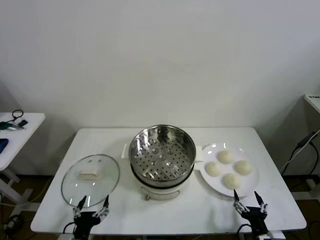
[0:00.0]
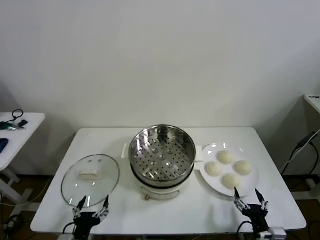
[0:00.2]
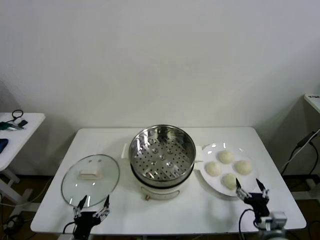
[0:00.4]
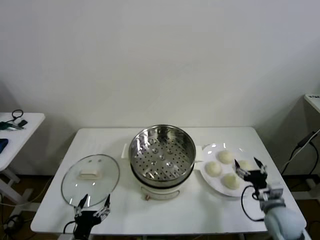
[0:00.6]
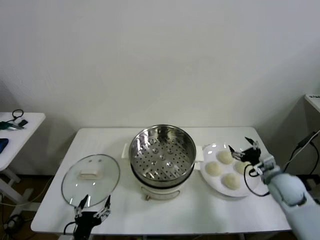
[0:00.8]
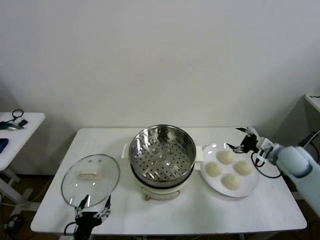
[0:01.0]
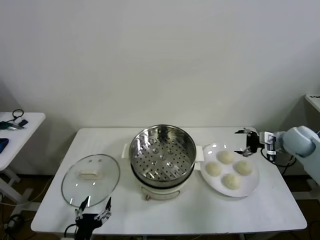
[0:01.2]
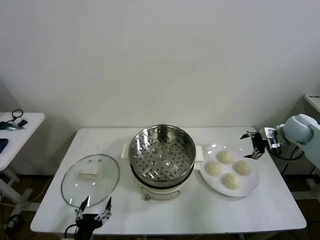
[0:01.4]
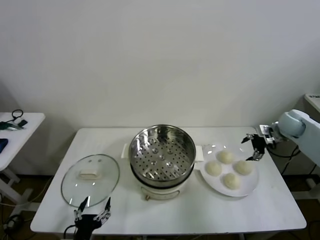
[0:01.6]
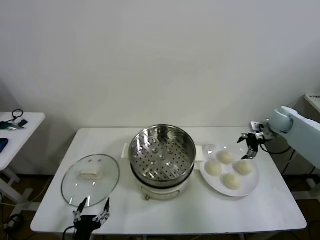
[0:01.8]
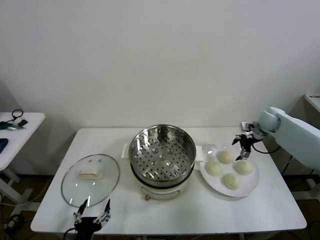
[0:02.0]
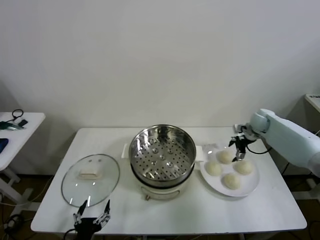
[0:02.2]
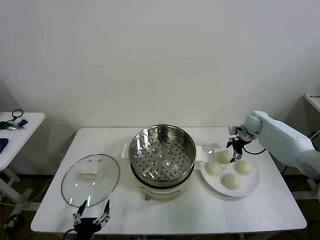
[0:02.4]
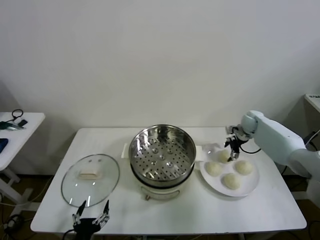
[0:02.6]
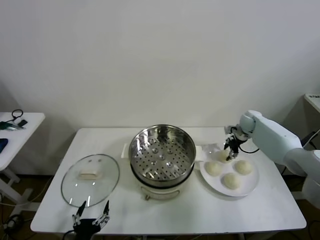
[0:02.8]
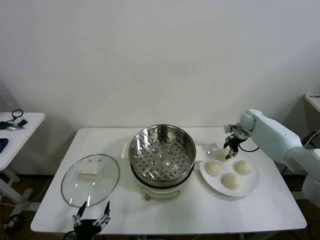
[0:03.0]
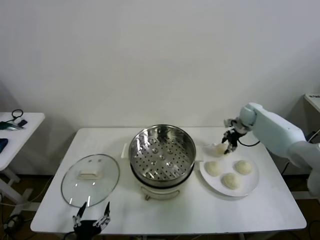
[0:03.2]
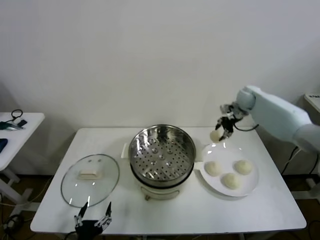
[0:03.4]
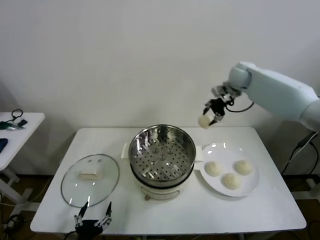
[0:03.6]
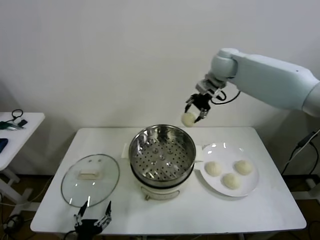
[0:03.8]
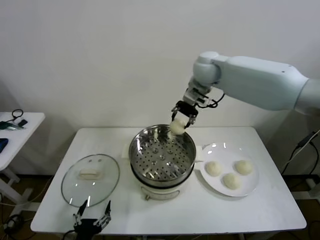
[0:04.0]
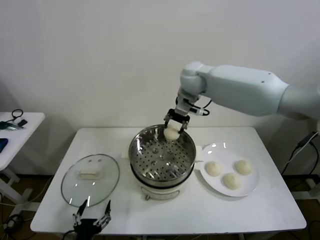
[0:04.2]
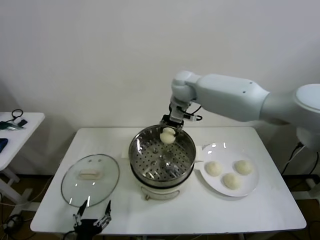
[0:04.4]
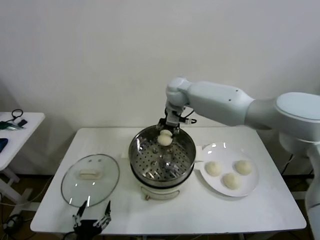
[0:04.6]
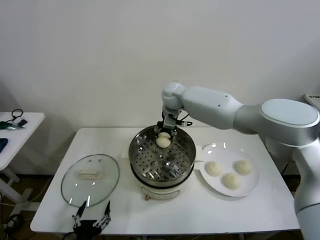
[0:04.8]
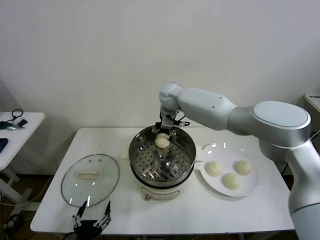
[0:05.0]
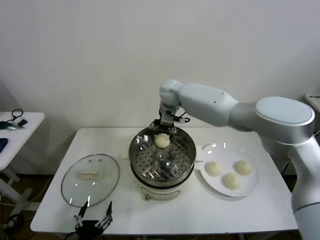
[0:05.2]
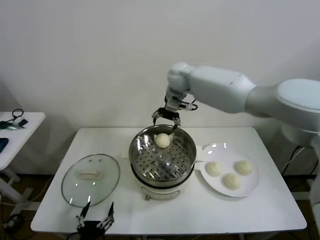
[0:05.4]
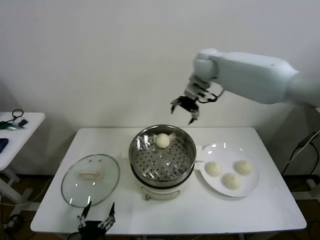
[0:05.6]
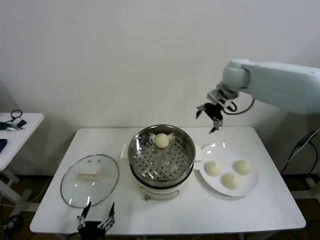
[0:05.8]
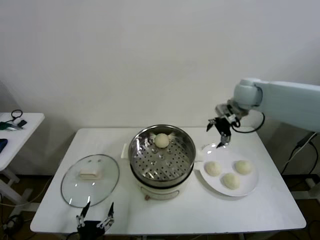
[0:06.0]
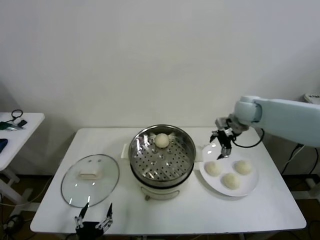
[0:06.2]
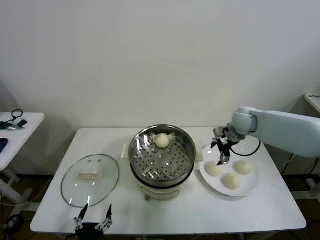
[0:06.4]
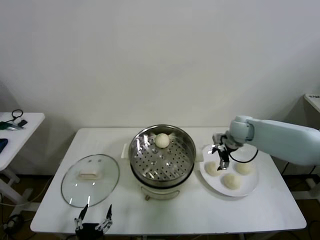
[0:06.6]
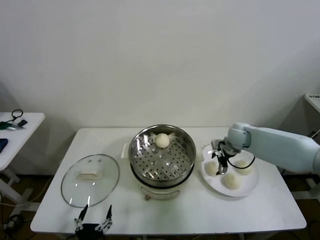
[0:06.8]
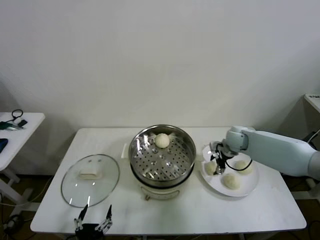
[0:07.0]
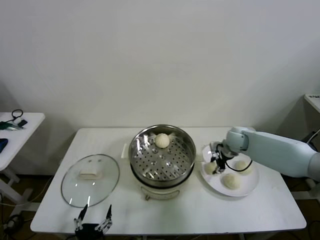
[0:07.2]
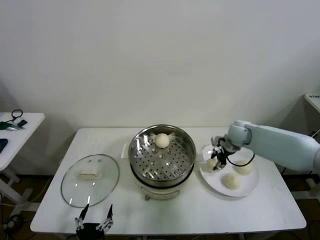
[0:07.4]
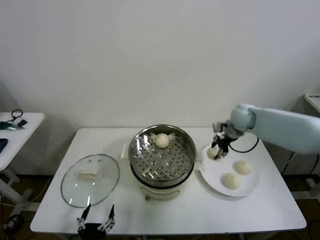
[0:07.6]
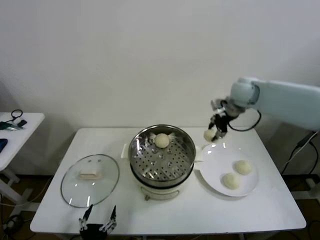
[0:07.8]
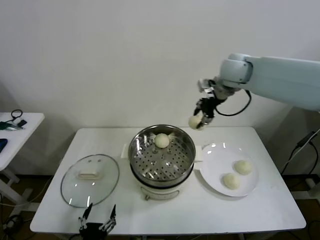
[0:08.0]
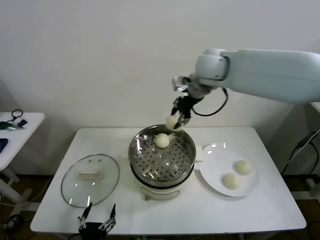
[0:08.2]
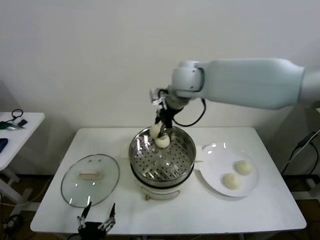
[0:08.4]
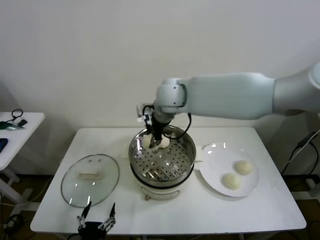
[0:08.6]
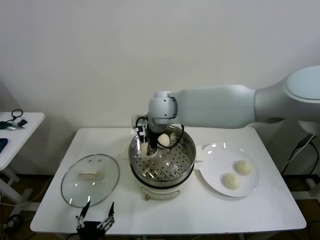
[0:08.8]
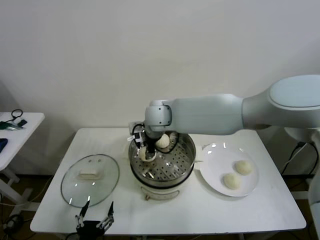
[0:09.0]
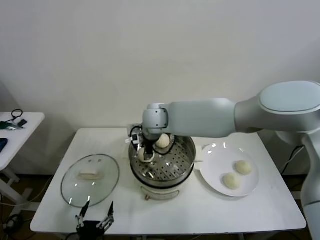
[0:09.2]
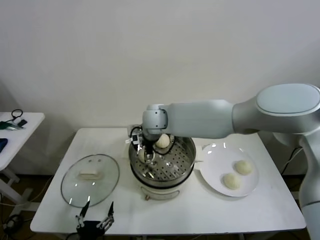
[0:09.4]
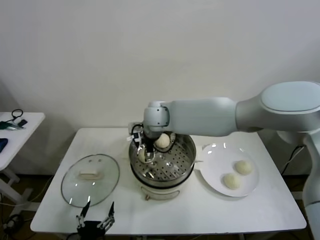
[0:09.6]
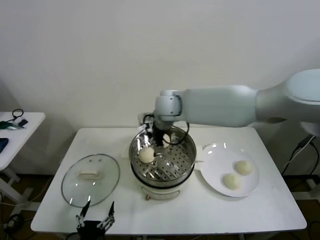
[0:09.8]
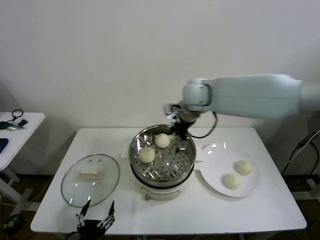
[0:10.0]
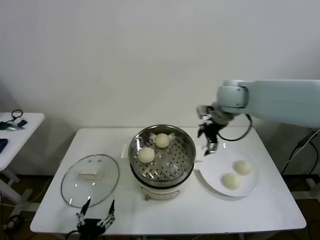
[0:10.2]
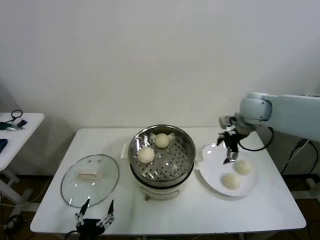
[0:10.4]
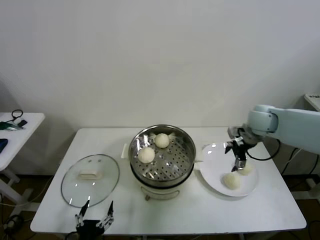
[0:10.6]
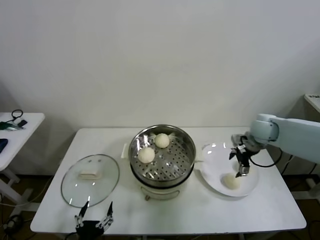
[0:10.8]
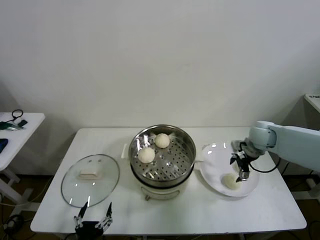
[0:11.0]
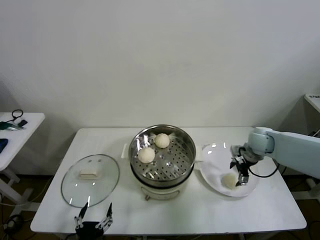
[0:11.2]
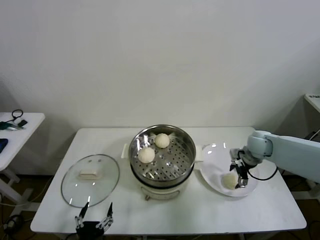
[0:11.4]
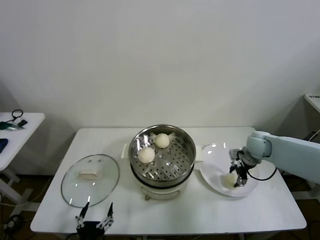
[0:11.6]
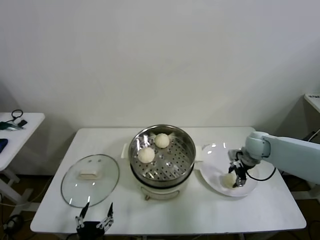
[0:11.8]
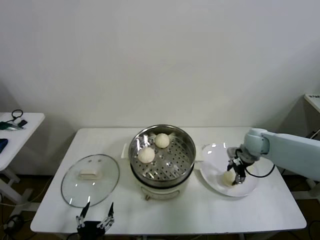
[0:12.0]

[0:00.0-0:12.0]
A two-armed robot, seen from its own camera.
Task of the whole recording: take steamed baozi put them in steamer then cover it.
Step, 0:00.0 to 0:03.0: Grasp the baozi in the plate with right gripper.
Step, 0:03.2 to 0:05.2: Place the baozi on the steamer with right gripper.
Step, 0:05.4 to 0:07.2: Grasp the baozi in the plate with right gripper.
Step, 0:07.4 to 0:09.6: Place the baozi on the steamer with right gripper.
Step, 0:09.8 to 0:11.8: Grasp the baozi in the plate with right gripper.
0:01.6 to 0:03.0: The right gripper shifts some 15 cm forward, to the left and downward, and closes up.
0:03.0 to 0:04.4: The right gripper is displaced to the left and upward by about 35 cm.
0:04.4 to 0:06.0: The right gripper heads to the right, covering roughly 25 cm, and opens.
0:06.0 to 0:07.6: The right gripper moves about 15 cm downward and comes back, and closes up.
0:07.6 to 0:09.0: The right gripper goes some 30 cm to the left.
0:09.0 to 0:10.4: The right gripper is displaced to the right by roughly 30 cm, and opens.
0:10.4 to 0:12.0: The right gripper travels downward by approximately 15 cm, and closes.

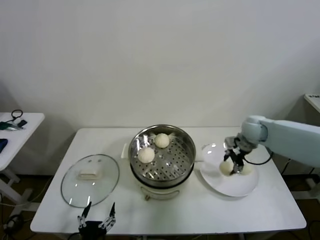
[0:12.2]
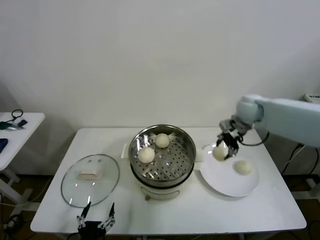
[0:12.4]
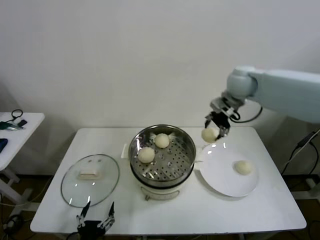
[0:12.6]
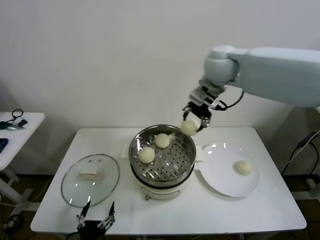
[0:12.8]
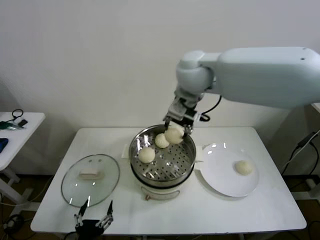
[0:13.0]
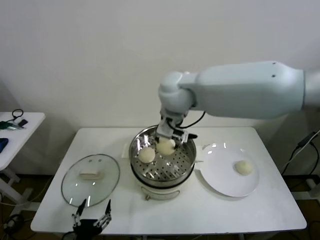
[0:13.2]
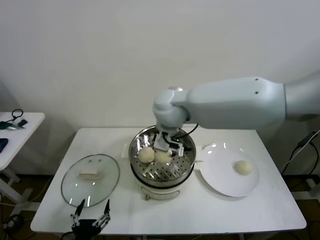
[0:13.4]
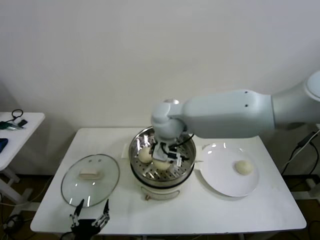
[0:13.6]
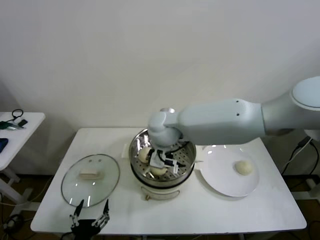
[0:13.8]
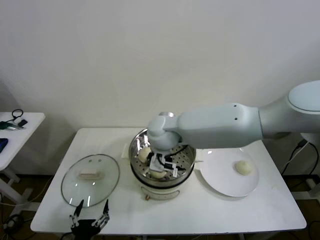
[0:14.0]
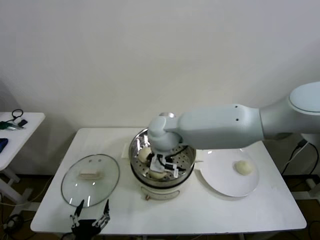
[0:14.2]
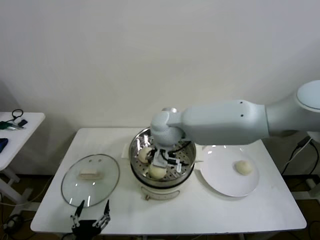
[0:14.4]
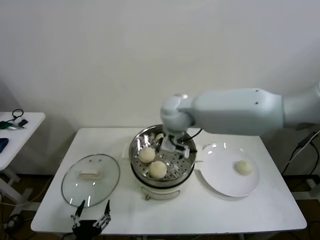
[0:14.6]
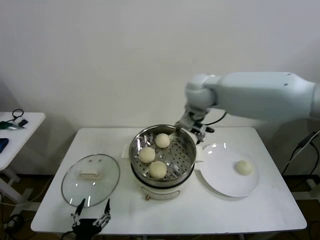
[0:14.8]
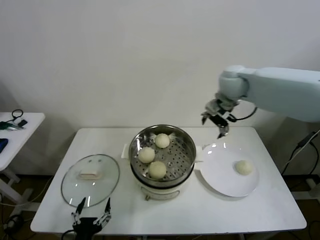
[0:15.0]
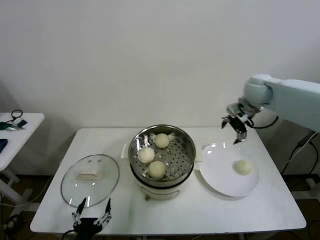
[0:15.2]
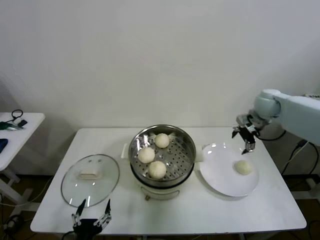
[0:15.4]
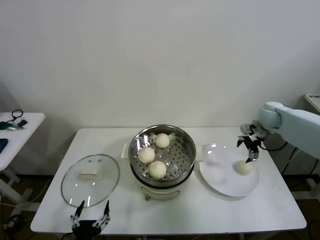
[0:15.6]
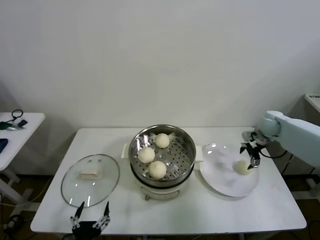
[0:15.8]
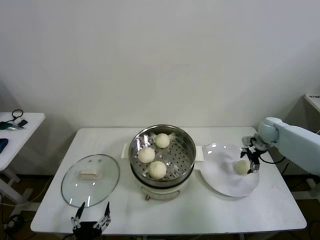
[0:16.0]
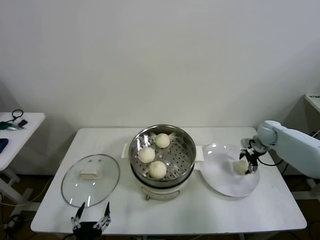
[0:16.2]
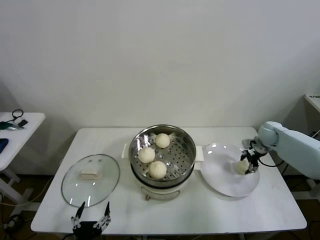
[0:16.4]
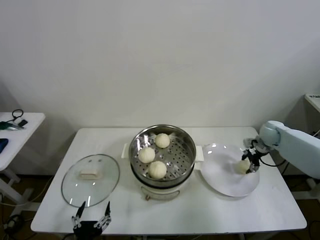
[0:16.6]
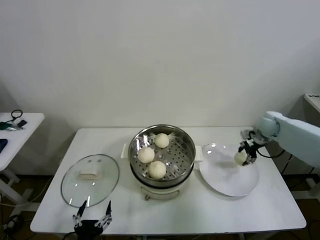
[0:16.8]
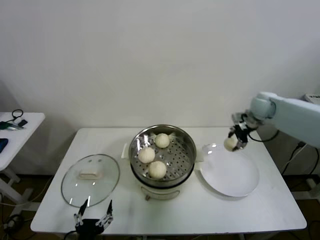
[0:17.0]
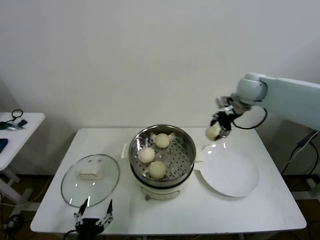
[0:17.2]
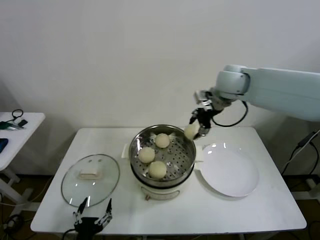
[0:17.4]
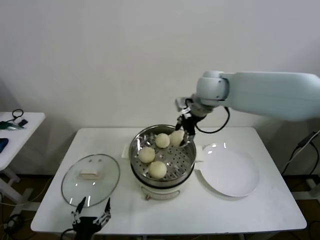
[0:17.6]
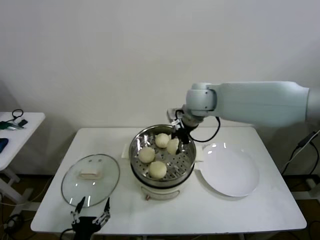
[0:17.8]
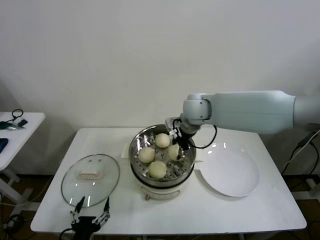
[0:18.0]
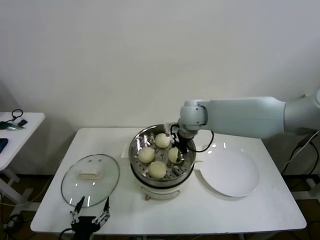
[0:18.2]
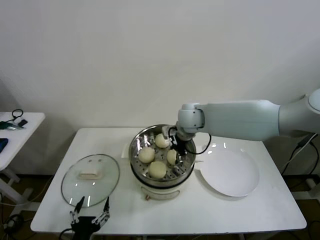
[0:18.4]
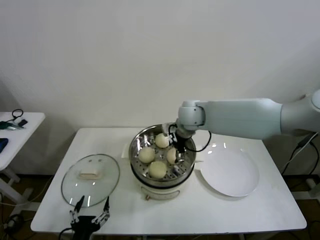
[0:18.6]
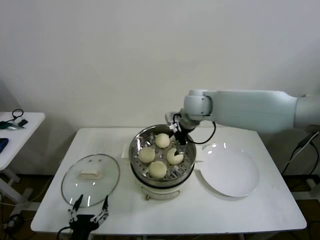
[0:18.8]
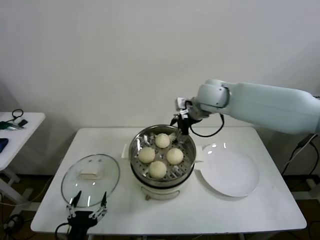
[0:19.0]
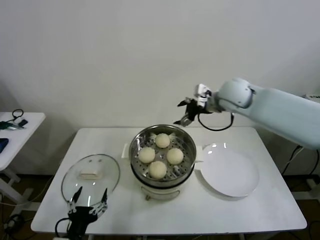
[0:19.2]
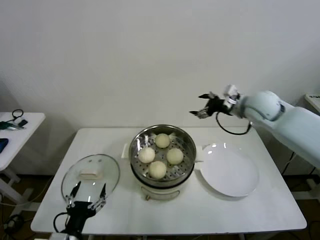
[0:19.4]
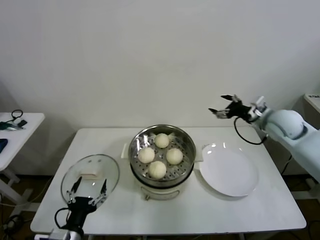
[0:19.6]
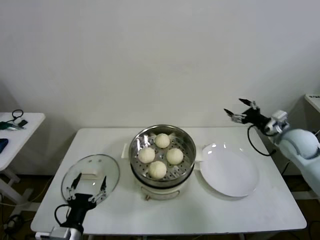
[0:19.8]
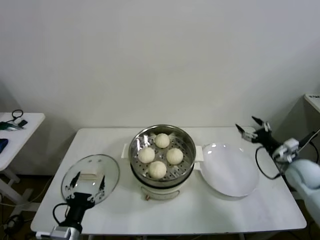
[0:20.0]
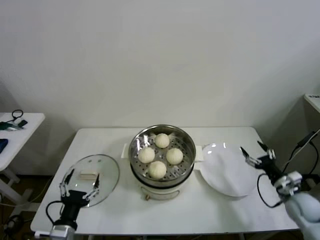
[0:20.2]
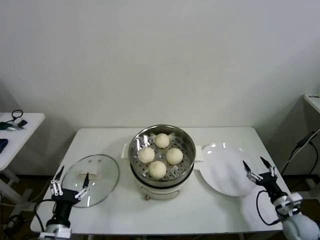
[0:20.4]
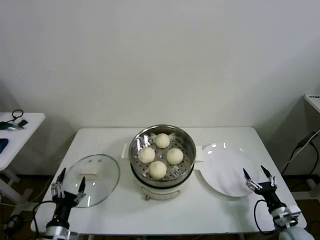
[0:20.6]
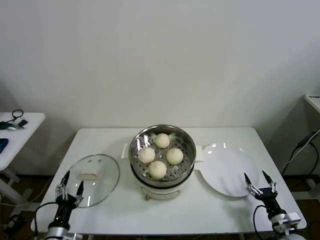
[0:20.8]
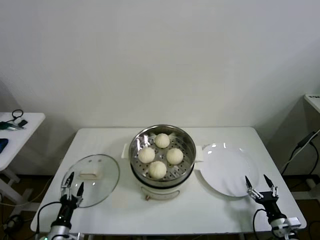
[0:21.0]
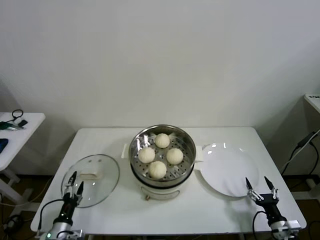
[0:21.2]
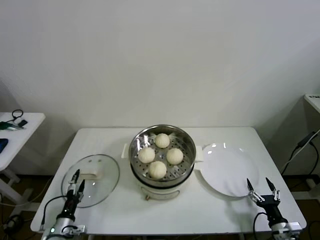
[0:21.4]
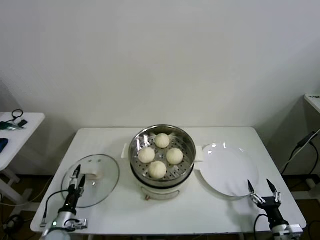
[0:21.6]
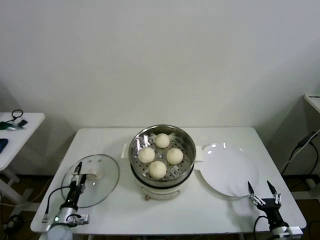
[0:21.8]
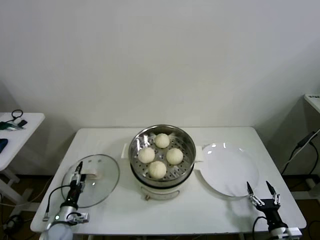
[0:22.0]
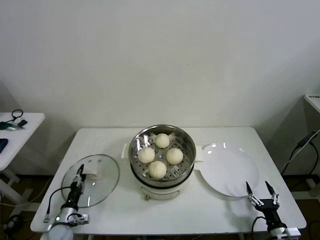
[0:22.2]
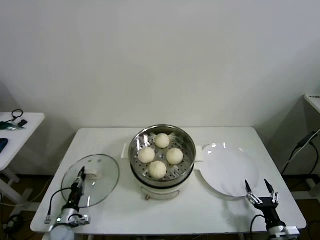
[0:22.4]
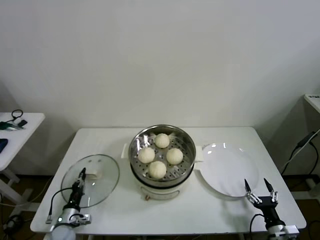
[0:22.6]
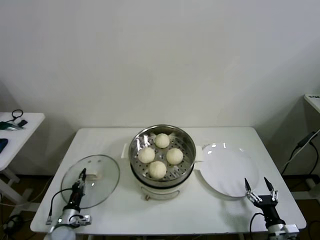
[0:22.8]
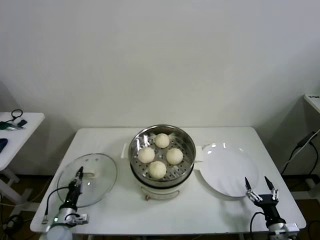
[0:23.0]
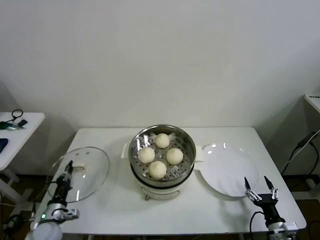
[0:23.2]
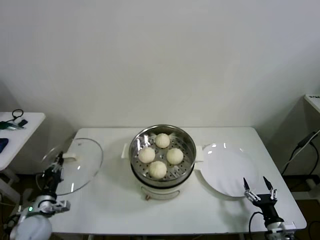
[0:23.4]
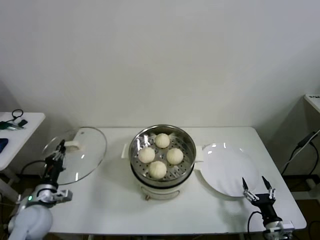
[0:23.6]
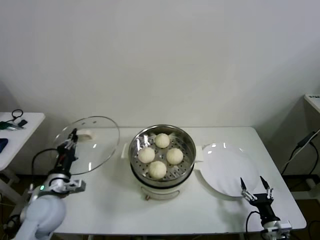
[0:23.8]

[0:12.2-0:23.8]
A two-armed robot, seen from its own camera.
Task of the whole recording: take steamed baozi put them in steamer then cover it.
Step, 0:12.2 to 0:14.4: Place the baozi on the steamer with right gripper.
Step, 0:14.6 to 0:16.6: Grasp the baozi in the plate with right gripper.
Step, 0:16.8 to 0:18.6: Place the baozi on the steamer with right gripper.
Step, 0:18.8 to 0:22.8: Grasp the pot lid with left gripper.
0:12.2 to 0:13.6: The right gripper travels to the left by some 30 cm.
0:13.6 to 0:15.0: The right gripper moves to the right and forward, roughly 25 cm, and opens its fingers.
0:15.0 to 0:16.6: The right gripper is displaced downward and to the right by about 30 cm, and closes.
0:16.6 to 0:18.0: The right gripper goes about 35 cm to the left and upward.
0:18.0 to 0:19.4: The right gripper heads to the right, covering roughly 20 cm, and opens its fingers.
0:19.4 to 0:21.0: The left gripper goes about 20 cm downward, to the left and forward. Meanwhile the right gripper travels downward and backward by some 50 cm.
0:21.0 to 0:22.4: The left gripper travels forward and downward by roughly 10 cm, and closes its fingers.
0:22.4 to 0:23.8: The left gripper heads upward, covering roughly 25 cm, and closes.
